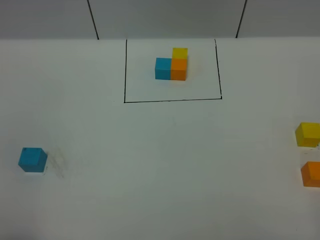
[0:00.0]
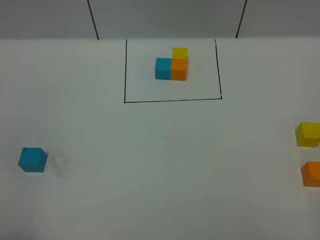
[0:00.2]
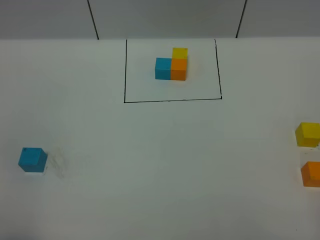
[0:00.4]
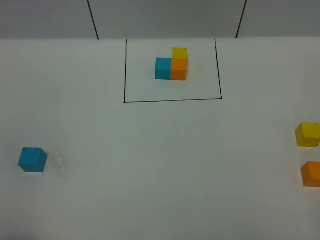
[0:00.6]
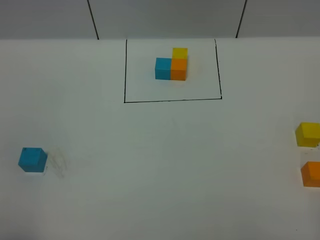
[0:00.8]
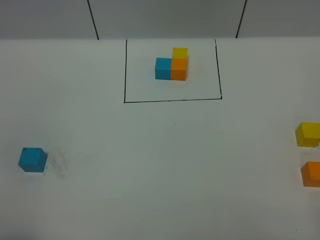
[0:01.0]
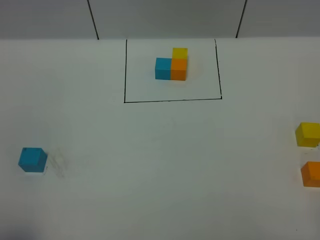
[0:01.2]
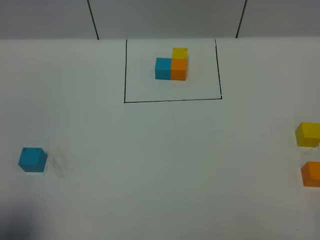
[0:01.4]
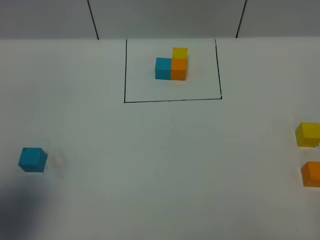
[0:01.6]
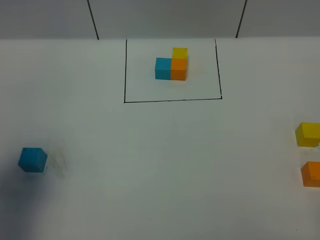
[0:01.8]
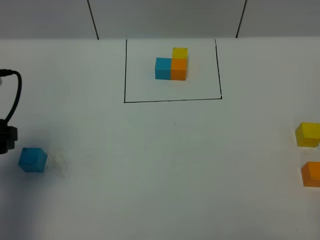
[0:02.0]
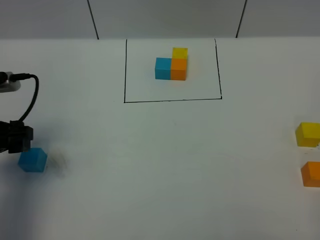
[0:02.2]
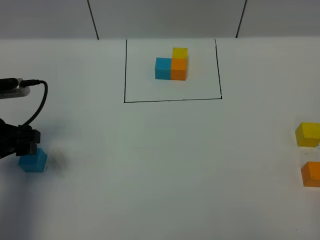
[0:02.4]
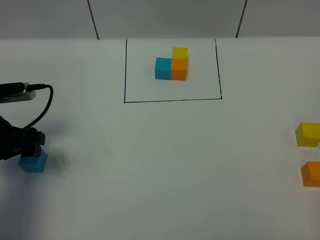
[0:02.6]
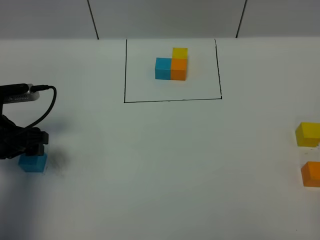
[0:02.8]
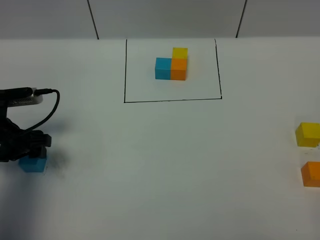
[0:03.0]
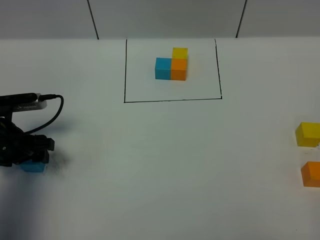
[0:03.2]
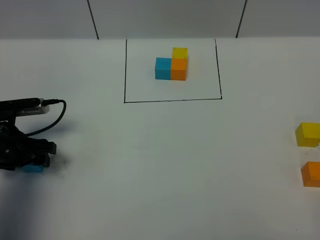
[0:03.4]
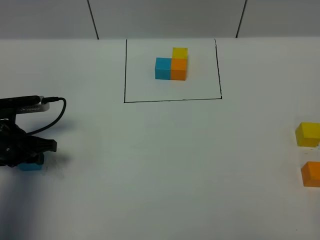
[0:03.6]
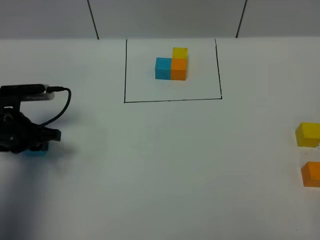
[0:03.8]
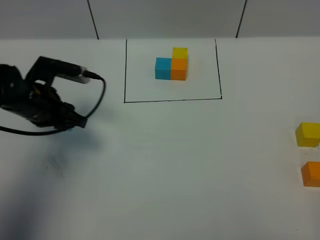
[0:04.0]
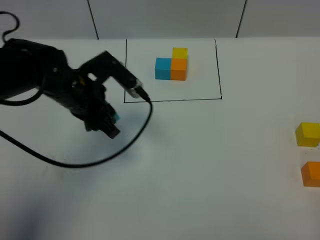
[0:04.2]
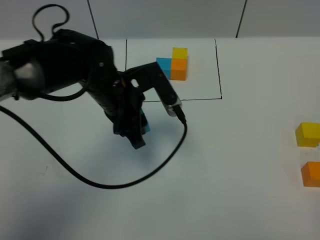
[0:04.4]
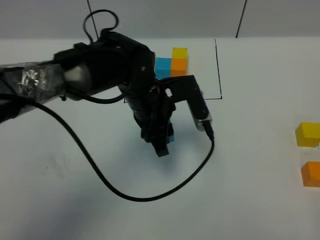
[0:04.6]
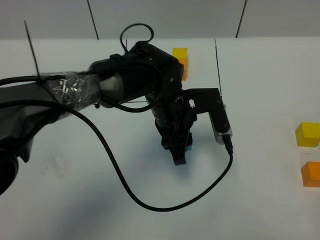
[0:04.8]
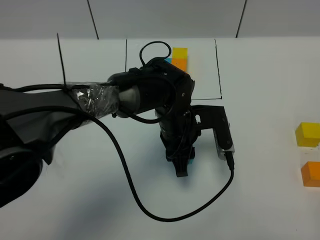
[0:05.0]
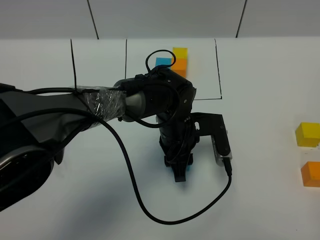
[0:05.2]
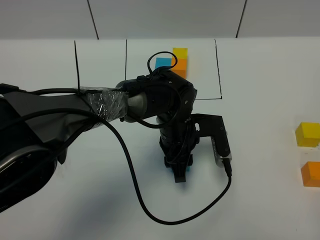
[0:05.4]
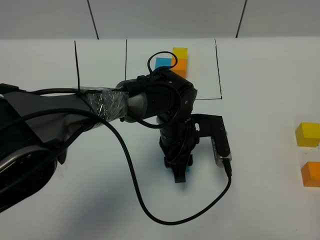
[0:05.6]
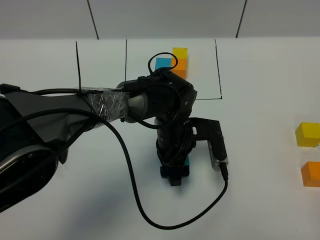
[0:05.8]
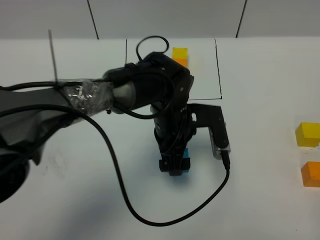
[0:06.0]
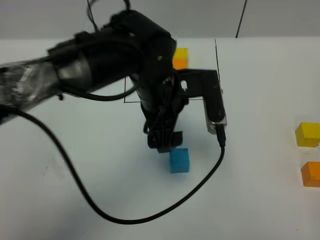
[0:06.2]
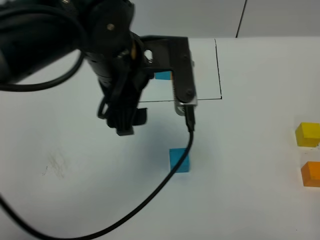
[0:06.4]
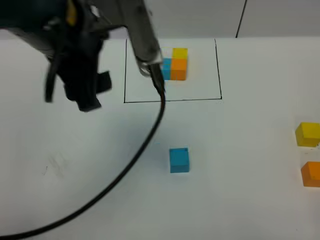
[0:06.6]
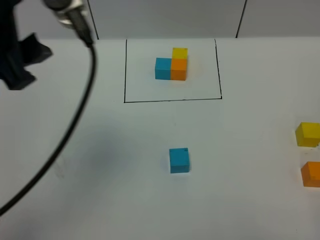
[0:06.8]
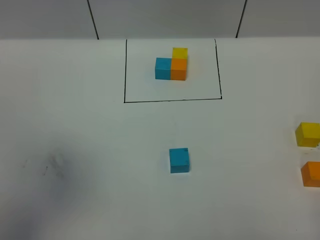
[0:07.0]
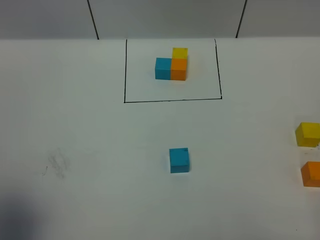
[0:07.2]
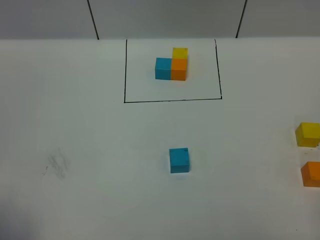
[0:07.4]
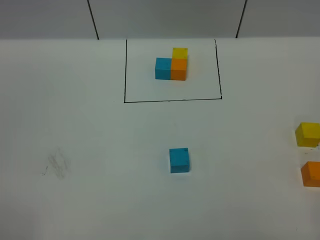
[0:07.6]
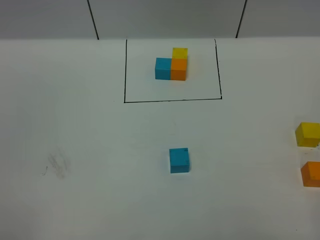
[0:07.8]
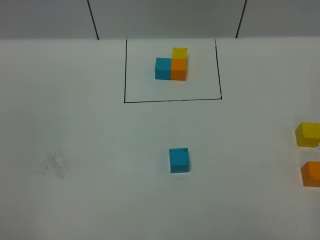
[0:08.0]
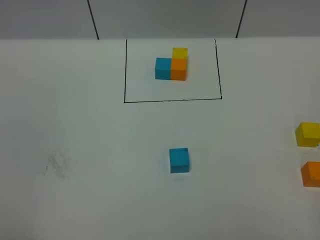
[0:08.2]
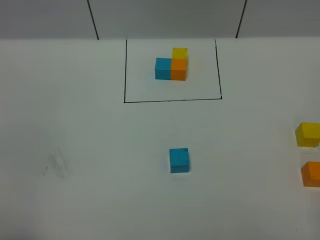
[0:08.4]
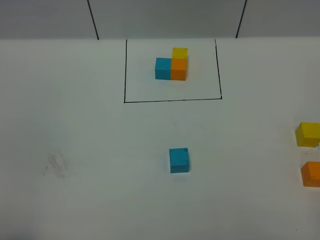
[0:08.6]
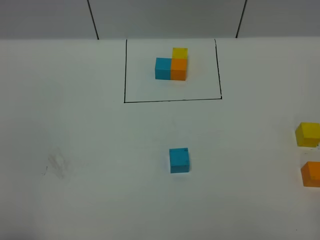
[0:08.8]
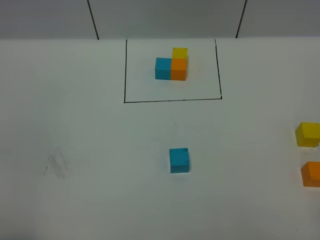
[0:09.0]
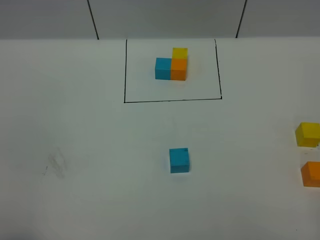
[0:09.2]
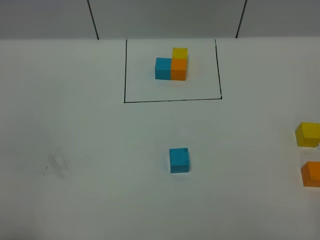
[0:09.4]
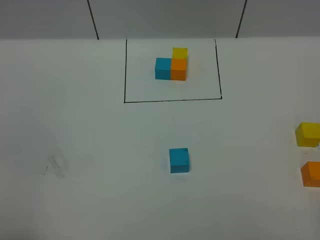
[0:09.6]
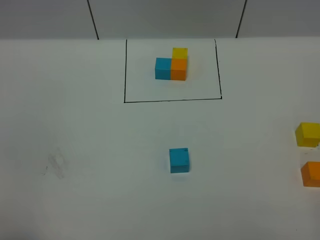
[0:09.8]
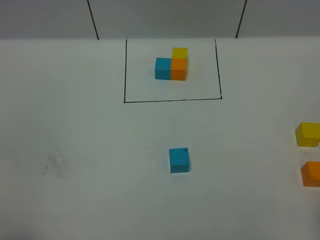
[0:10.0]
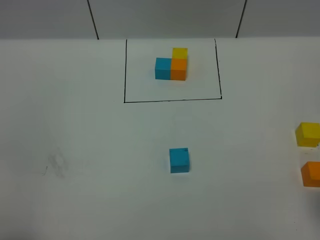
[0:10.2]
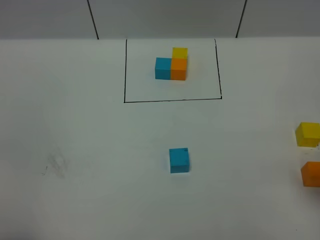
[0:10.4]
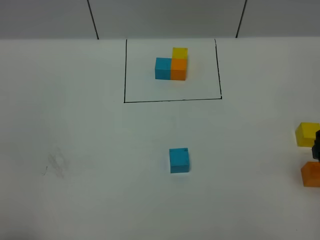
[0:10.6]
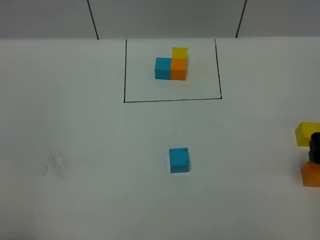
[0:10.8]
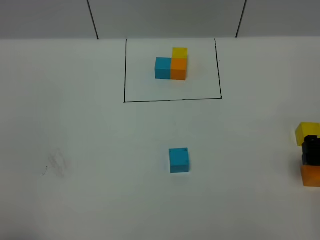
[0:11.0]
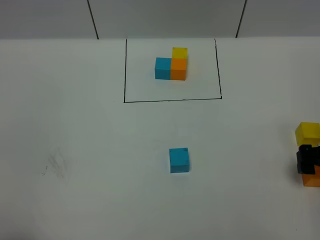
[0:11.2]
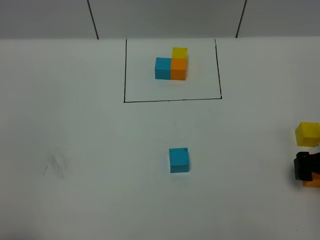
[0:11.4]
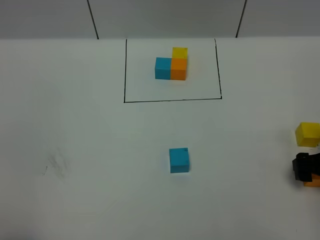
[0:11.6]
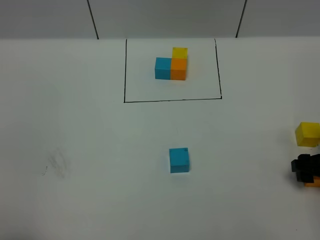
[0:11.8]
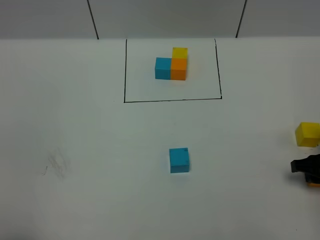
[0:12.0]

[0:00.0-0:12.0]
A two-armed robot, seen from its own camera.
Task of the whole recording: According to the building block template in front, assemble the scattered blocks together.
Step, 0:01.8 to 0:06.0: Put the blue cube in the center of the table.
0:00.0 to 0:01.6: The left gripper travels forward by about 15 cm.
0:01.6 to 0:03.0: The left gripper is displaced downward and forward by about 20 cm.
0:03.0 to 0:04.4: The left gripper travels to the right by roughly 20 cm, and closes its fingers.
0:04.4 to 0:06.0: The left gripper moves to the right, roughly 10 cm, and opens up.
0:06.0 to 0:07.6: The left gripper shifts approximately 60 cm to the left, backward and upward.
0:10.4 to 0:12.0: The right gripper is displaced downward and forward by roughly 15 cm, and closes its fingers.

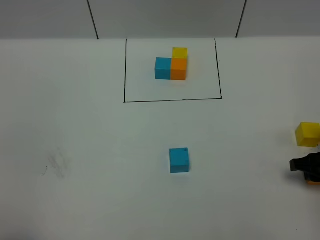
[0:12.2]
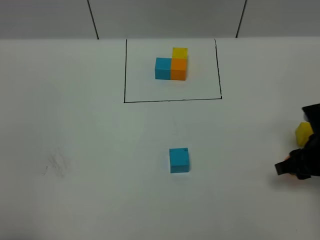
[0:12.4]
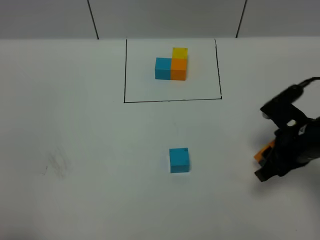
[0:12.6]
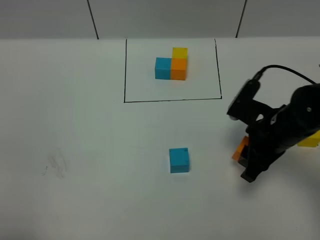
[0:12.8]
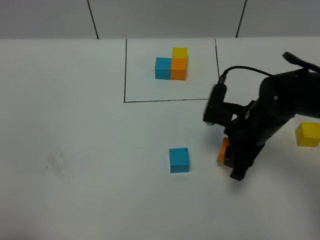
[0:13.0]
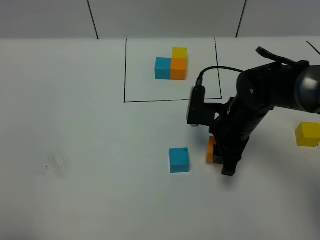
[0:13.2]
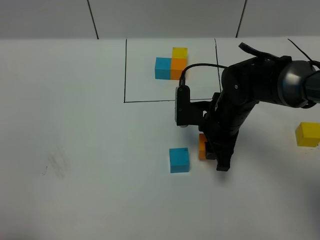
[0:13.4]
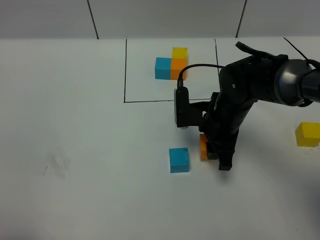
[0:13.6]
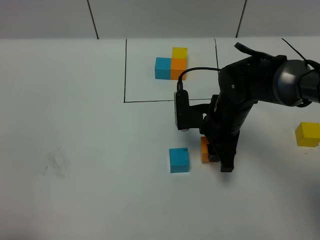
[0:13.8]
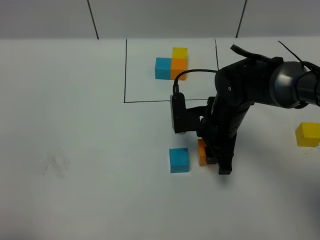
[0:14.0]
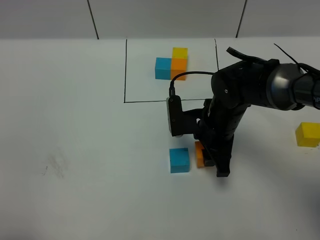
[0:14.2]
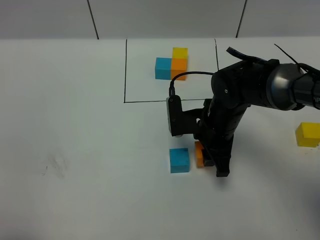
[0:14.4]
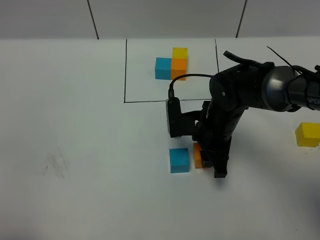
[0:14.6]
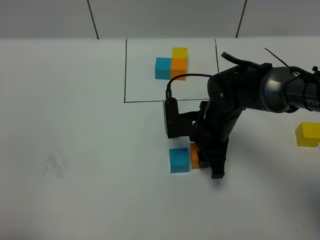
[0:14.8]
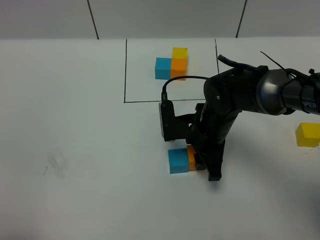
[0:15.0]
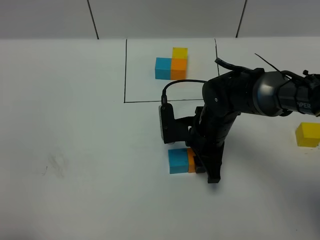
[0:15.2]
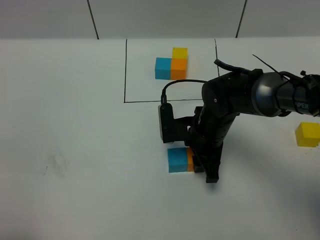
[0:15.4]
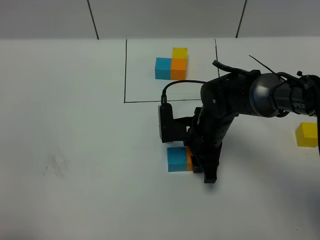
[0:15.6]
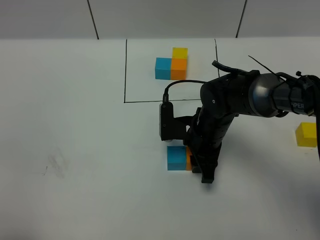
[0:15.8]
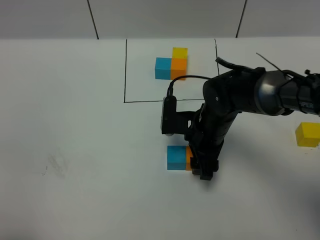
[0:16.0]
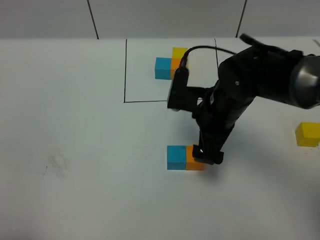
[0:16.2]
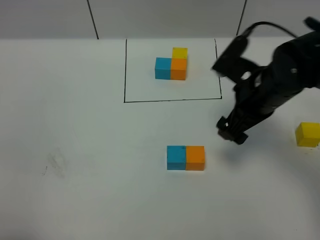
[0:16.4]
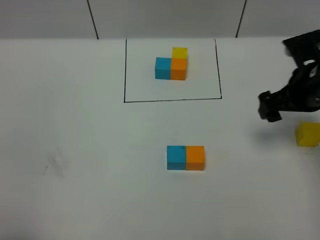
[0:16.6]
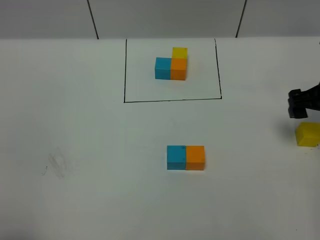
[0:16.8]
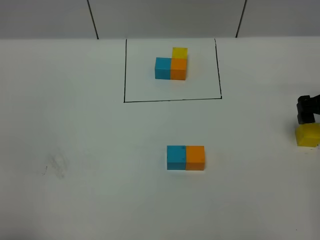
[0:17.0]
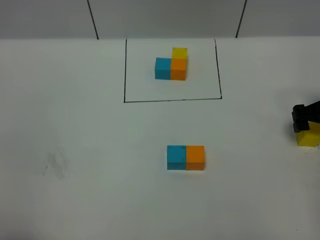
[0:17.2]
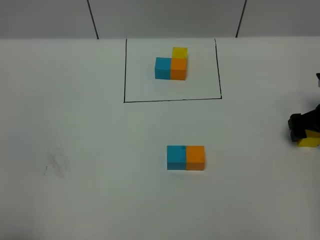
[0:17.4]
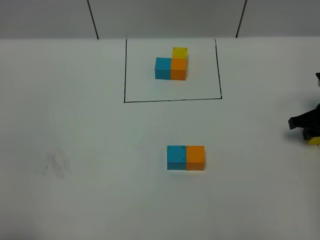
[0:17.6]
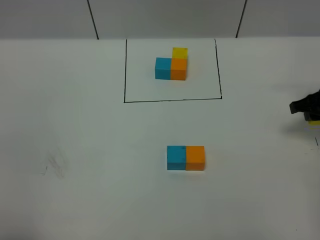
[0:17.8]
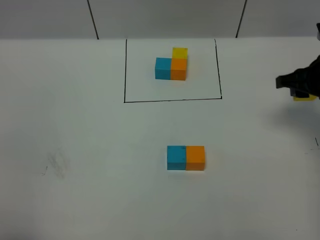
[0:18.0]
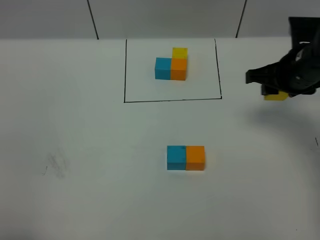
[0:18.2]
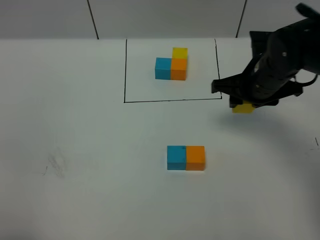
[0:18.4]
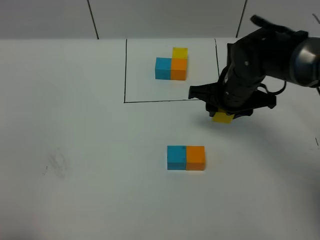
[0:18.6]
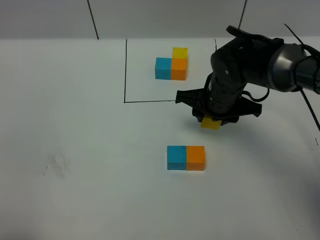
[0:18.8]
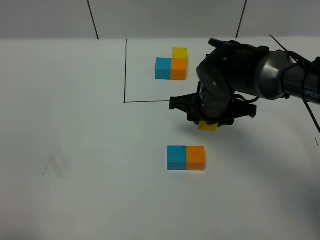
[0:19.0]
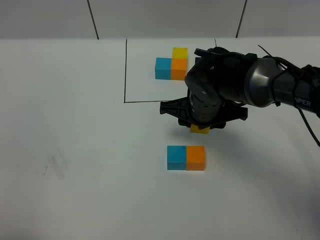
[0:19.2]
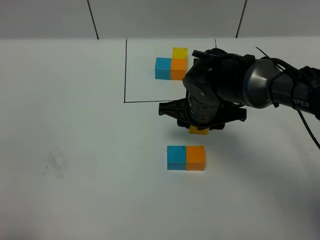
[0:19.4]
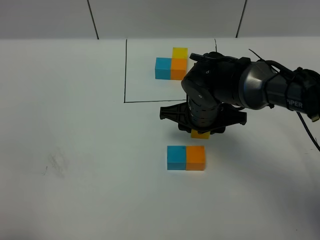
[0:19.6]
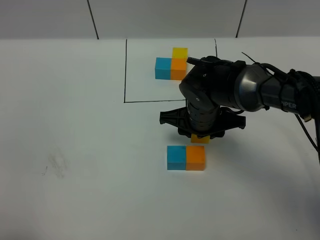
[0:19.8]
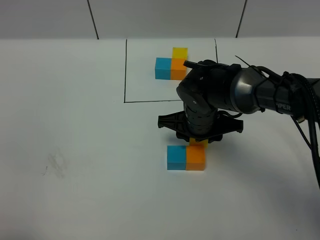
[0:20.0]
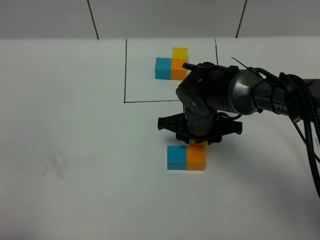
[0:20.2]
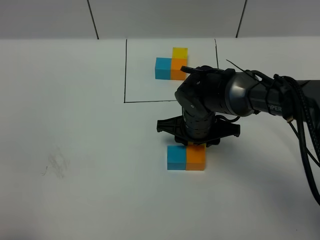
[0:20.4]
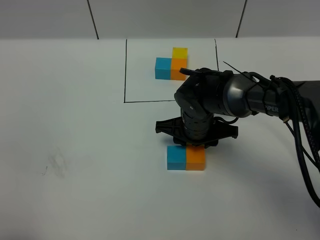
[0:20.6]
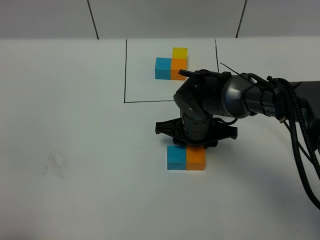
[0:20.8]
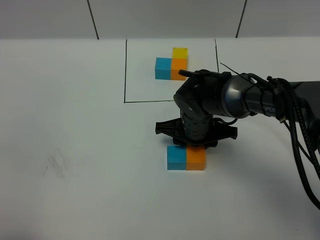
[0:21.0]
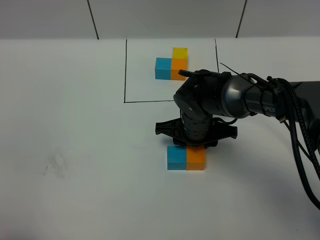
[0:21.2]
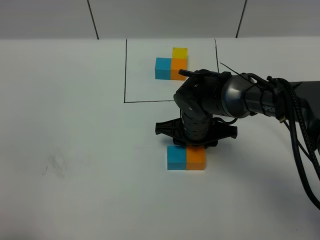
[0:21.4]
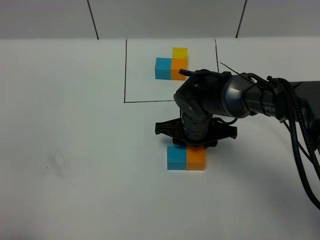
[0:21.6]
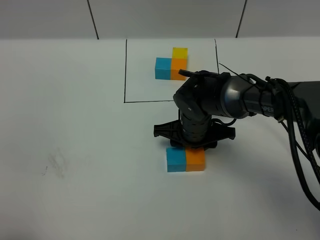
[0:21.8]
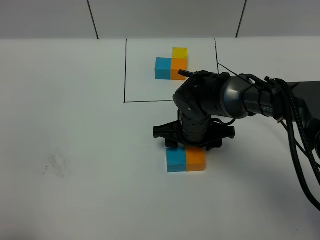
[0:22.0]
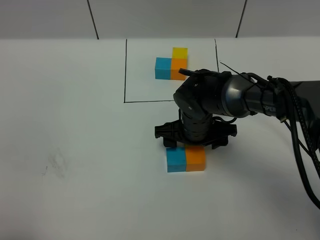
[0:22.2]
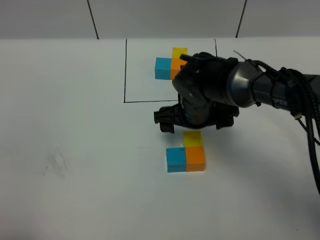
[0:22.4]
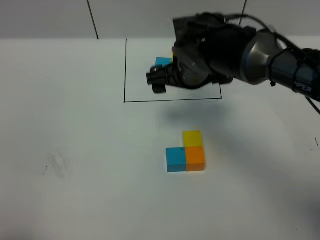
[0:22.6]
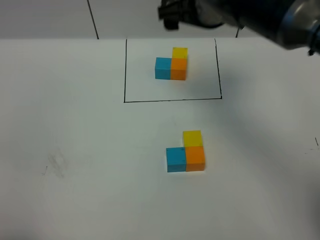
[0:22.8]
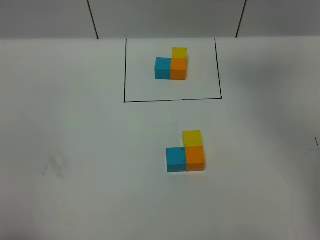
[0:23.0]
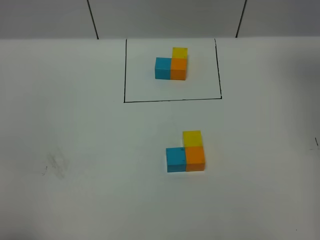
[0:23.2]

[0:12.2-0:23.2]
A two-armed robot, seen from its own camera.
Task of the whole recording: According to the building block template in front, assemble the scattered blocks together.
Step, 0:12.2 to 0:16.0: Put the orange cube on the right of the blue cube.
Step, 0:16.2 to 0:22.2: Put the yellow cube on the behind of the orange cube.
0:12.2 to 0:13.8: The right gripper travels to the left by roughly 20 cm.
0:13.8 to 0:15.4: The grippers make only small movements.
0:15.4 to 0:17.0: The right gripper is displaced to the right by approximately 25 cm, and opens.
0:17.0 to 0:18.4: The right gripper moves to the left, roughly 15 cm, and closes up.
0:18.4 to 0:20.0: The right gripper shifts some 10 cm to the left and downward.
0:20.0 to 0:21.6: The grippers stay close to where they were, moving slightly.
0:21.6 to 0:23.2: The right gripper goes some 40 cm upward and to the right, and opens up.
